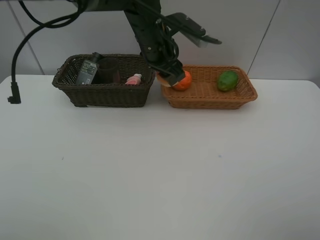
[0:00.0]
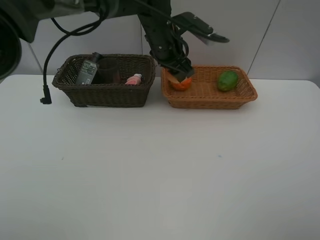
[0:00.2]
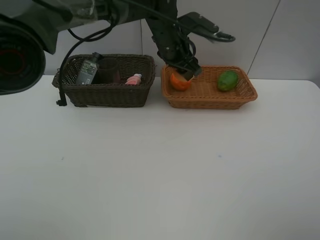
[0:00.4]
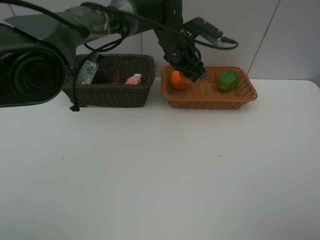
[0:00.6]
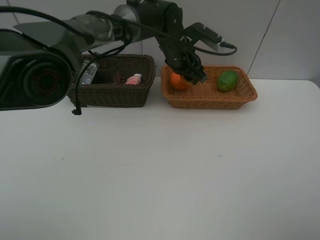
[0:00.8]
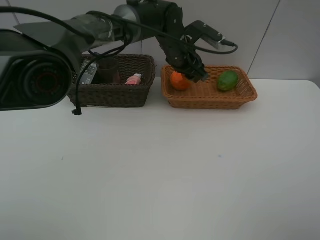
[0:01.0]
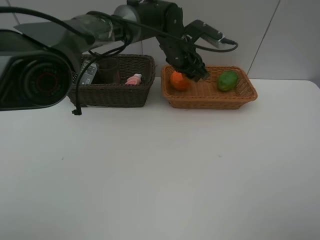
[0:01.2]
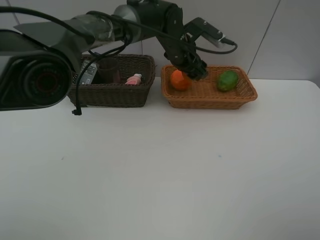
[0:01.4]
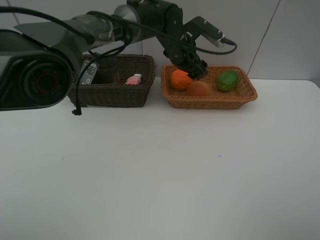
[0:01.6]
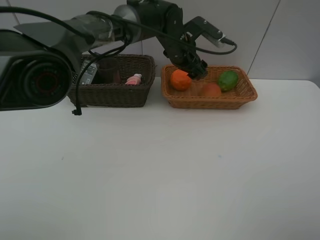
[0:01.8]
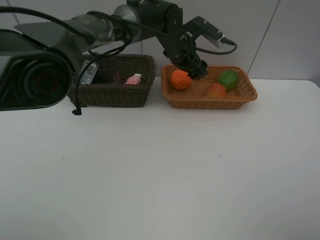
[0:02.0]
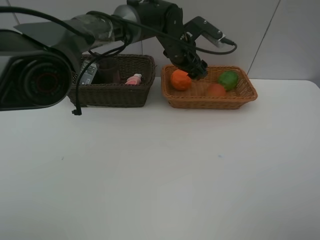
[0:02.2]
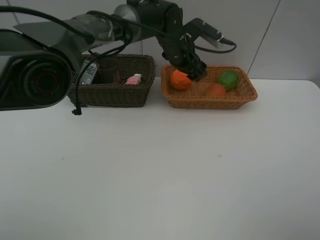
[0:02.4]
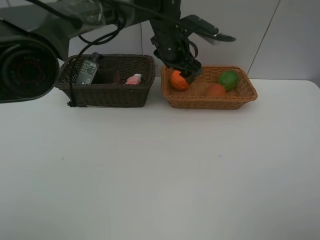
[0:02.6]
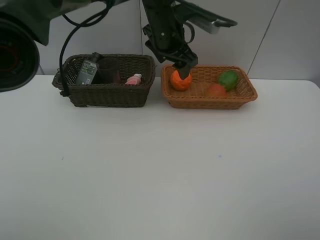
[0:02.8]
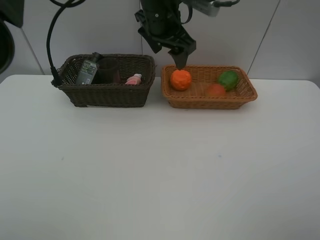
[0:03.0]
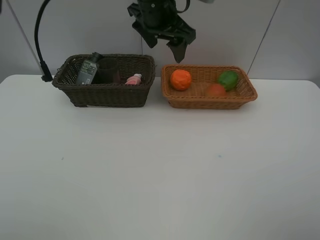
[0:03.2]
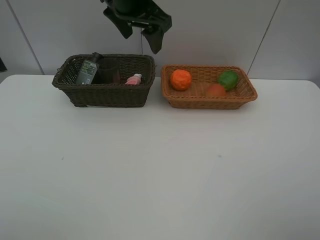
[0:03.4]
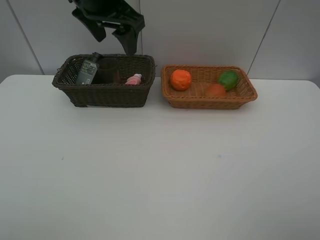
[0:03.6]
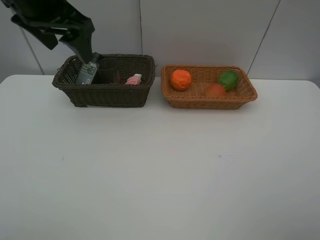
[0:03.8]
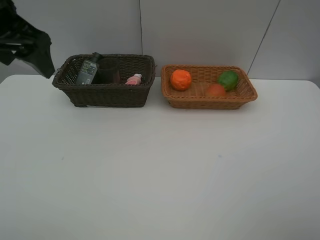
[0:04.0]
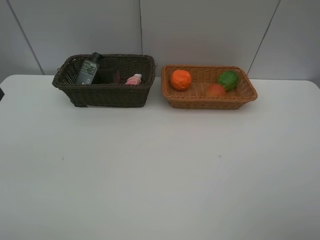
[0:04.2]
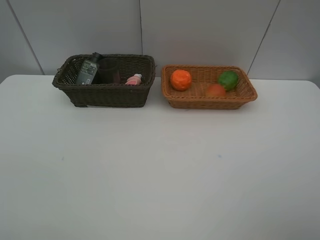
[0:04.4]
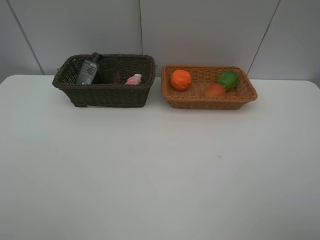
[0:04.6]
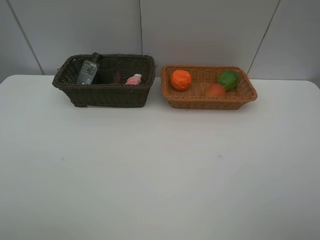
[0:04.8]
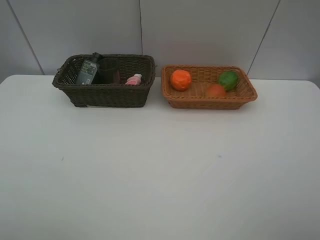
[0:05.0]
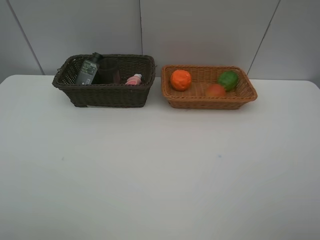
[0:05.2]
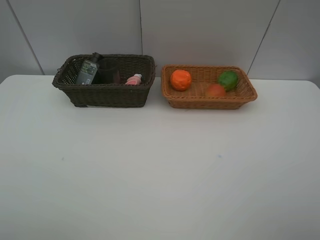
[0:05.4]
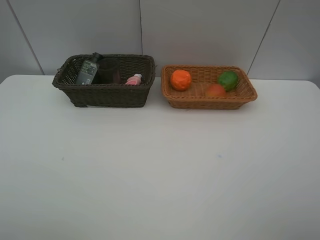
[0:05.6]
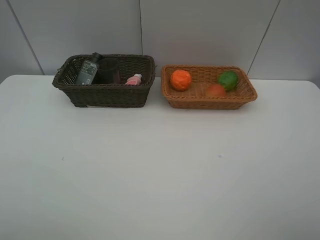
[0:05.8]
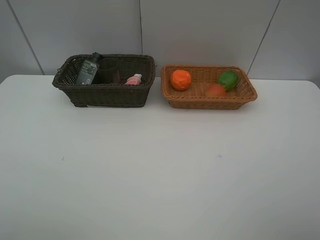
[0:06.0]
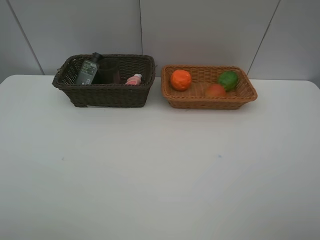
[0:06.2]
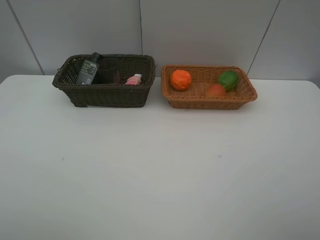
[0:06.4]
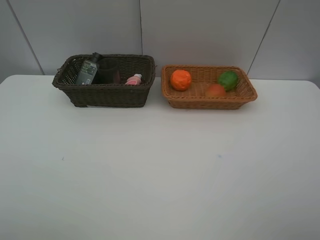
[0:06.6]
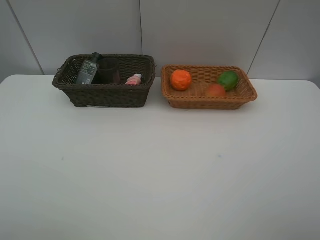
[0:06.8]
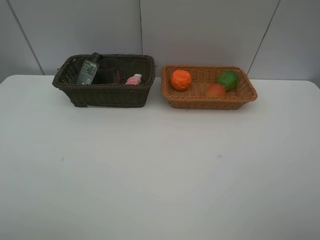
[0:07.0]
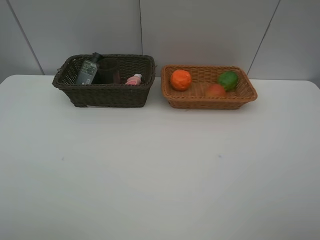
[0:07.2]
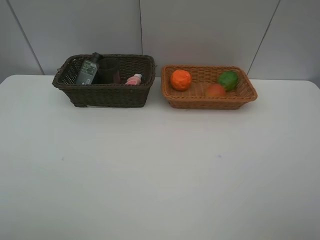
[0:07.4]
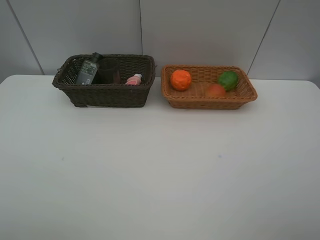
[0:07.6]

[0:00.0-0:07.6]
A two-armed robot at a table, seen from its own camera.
Task of the whole recording: place multiple objects separately in different baskets.
0.0 to 1.6 s: The left gripper is displaced forward by approximately 5 cm.
1.6 to 3.0 s: The left gripper shifts roughly 10 cm upward and backward.
3.0 to 4.6 s: The left gripper travels backward and to the left by approximately 50 cm.
6.0 to 7.6 s: Neither gripper changes place.

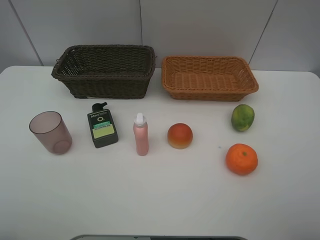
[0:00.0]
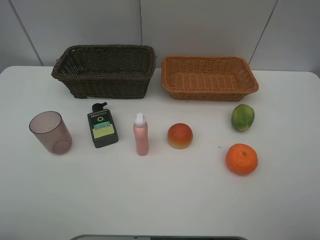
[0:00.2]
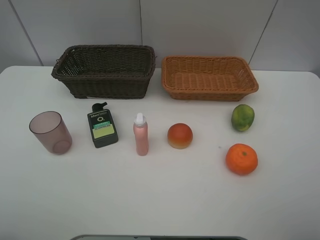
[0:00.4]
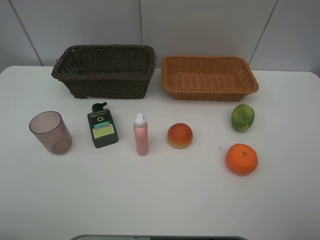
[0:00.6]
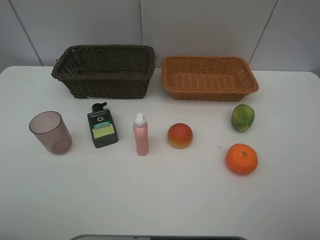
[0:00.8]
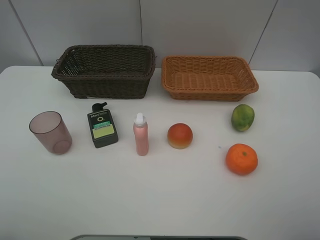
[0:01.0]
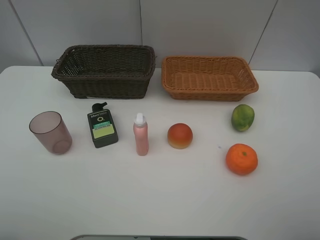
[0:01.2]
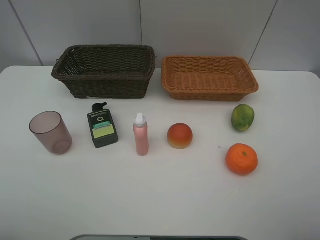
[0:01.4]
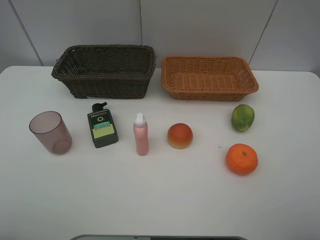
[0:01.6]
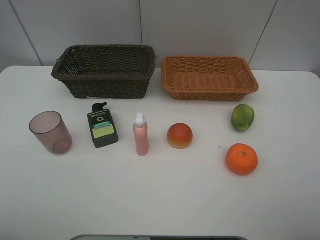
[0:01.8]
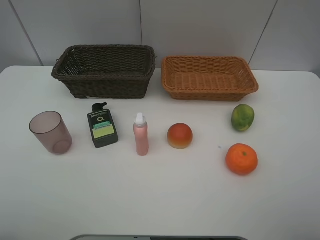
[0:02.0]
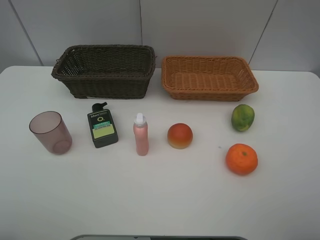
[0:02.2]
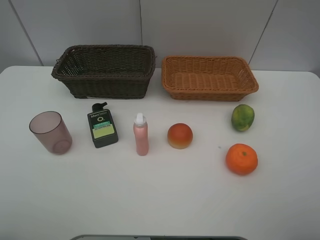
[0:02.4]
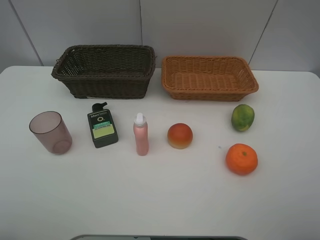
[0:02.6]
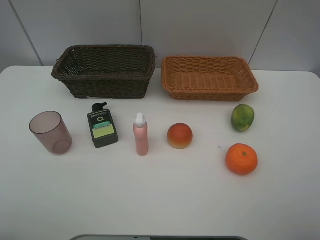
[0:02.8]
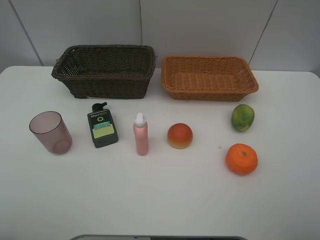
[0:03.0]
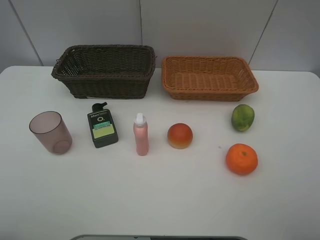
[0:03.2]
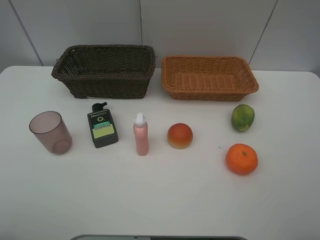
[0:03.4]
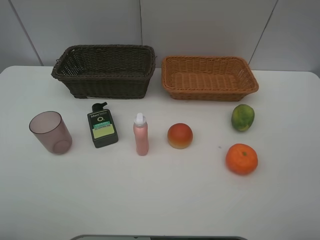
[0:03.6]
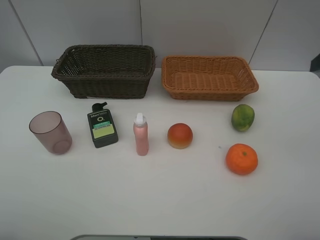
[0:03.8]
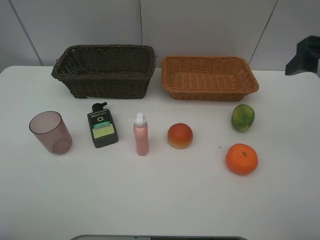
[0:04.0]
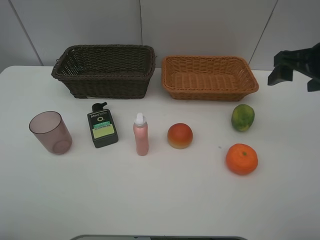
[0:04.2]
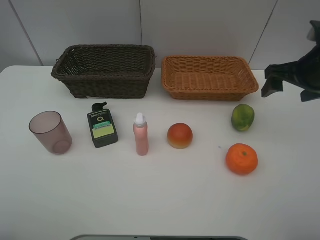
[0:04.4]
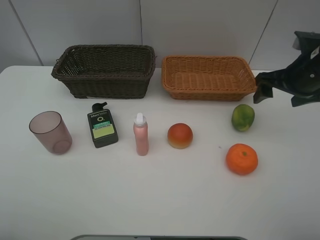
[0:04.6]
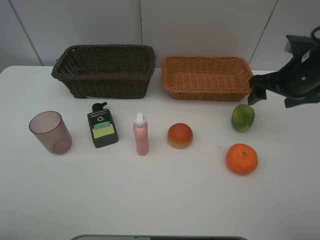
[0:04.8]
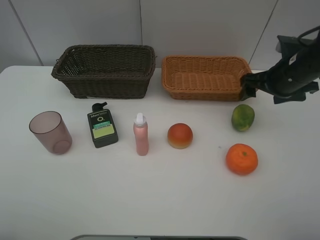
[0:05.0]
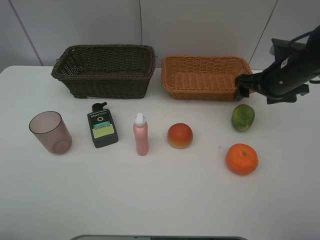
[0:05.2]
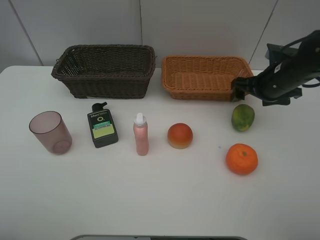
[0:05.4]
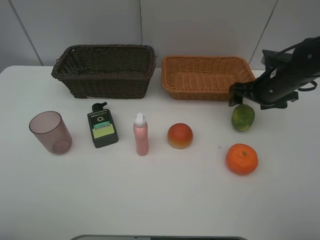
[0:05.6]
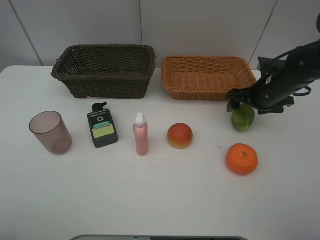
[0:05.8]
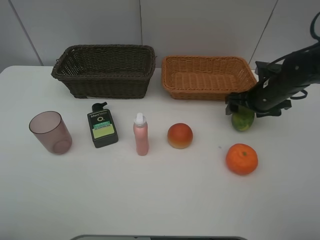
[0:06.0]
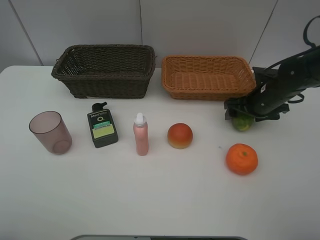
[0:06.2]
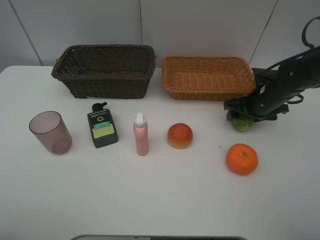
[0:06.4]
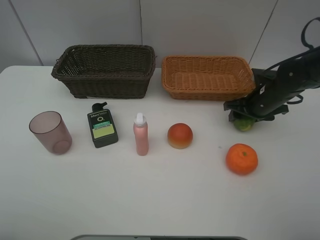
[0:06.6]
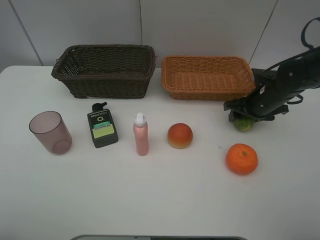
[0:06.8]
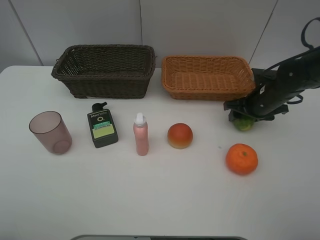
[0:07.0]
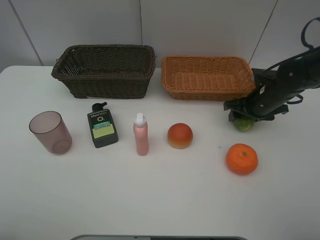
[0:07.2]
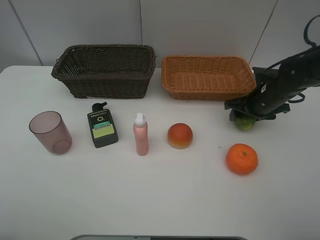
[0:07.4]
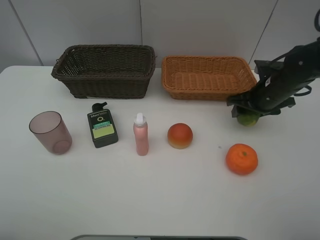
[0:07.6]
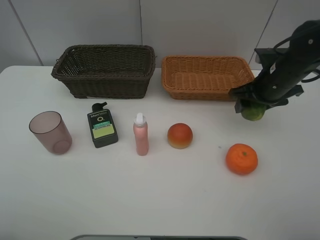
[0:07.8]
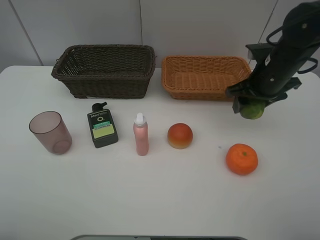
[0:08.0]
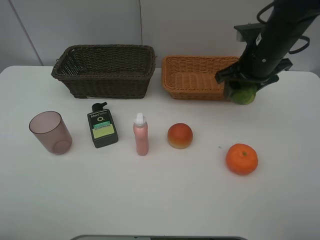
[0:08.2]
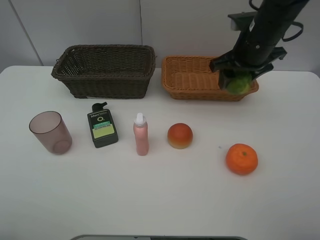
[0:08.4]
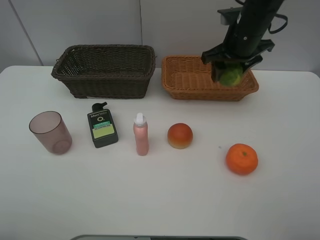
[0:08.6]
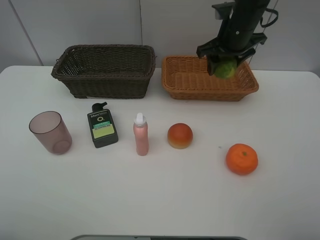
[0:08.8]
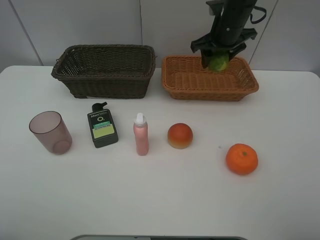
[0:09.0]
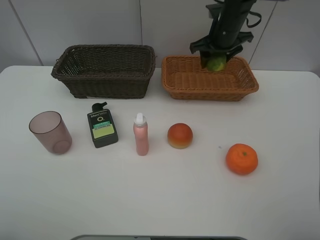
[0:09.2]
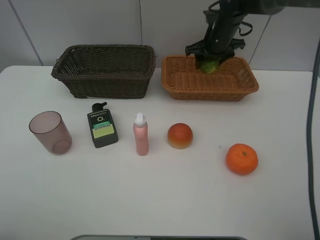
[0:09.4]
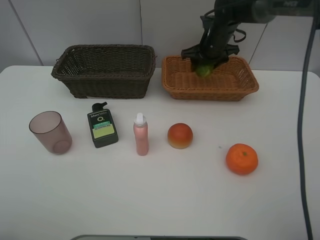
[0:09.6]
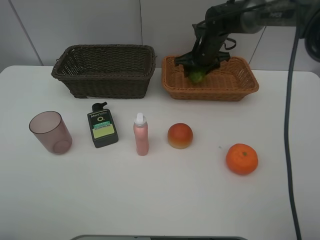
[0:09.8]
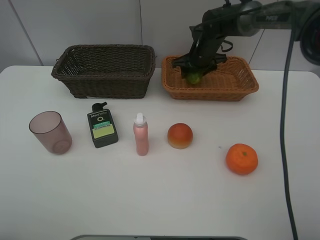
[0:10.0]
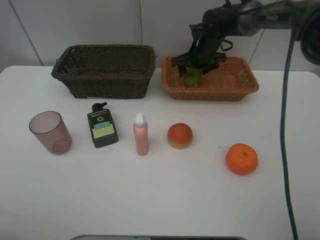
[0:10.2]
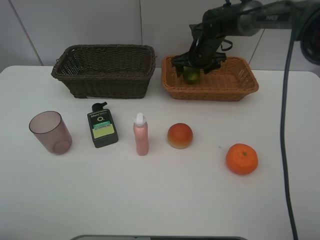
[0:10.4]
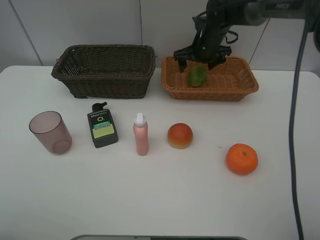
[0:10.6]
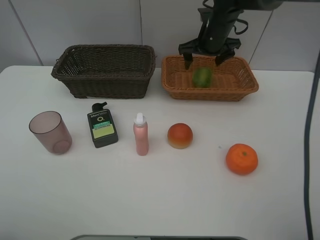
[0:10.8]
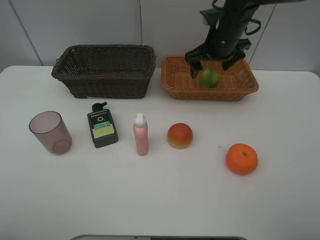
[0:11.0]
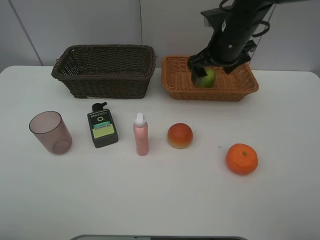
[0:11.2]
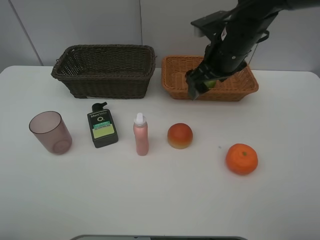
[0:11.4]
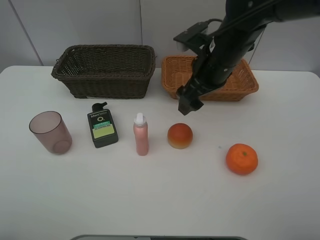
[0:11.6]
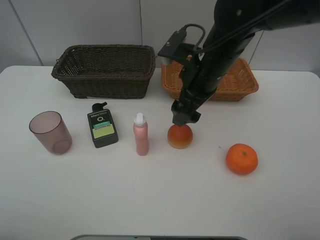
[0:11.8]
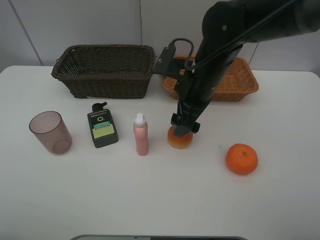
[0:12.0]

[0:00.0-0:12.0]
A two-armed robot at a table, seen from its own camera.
Task of the whole recording: place multiple objects separately in different baskets.
Step, 0.0 to 7.6 s: Pick up the lime with right gripper.
Step, 7.8 to 10.8 s: Place the lime in the light basket with right gripper.
0.0 to 1.6 s: The two grippers keep their place.
3.0 to 4.4 s: The right gripper heads forward, covering roughly 25 cm.
4.4 to 6.0 s: The right gripper shifts roughly 15 cm downward and forward.
6.0 to 7.6 s: The right gripper closes up.
7.6 to 9.0 s: The right gripper goes roughly 20 cm forward, to the left and upward.
9.0 to 10.4 s: The right gripper shifts about 10 cm downward, and opens its fingers.
10.4 to 12.0 s: The right gripper travels backward by roughly 20 cm.

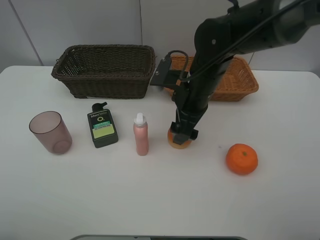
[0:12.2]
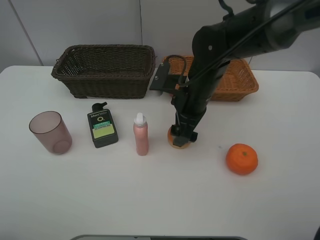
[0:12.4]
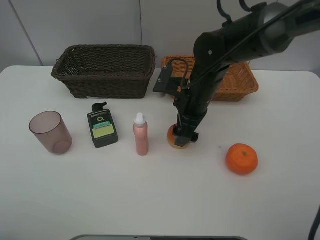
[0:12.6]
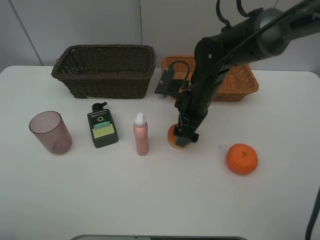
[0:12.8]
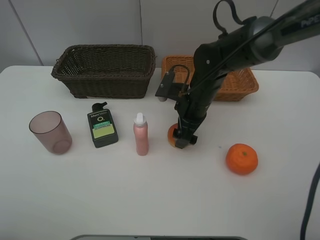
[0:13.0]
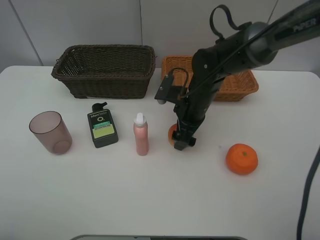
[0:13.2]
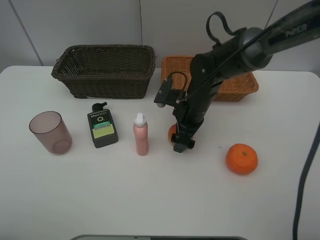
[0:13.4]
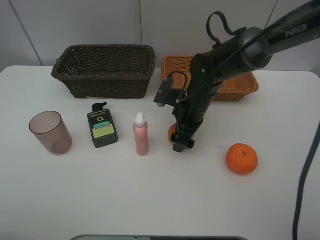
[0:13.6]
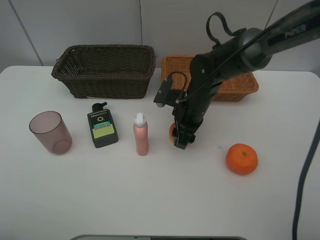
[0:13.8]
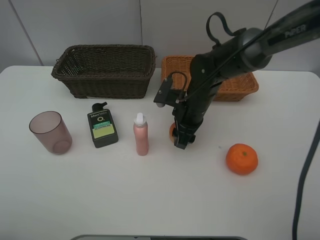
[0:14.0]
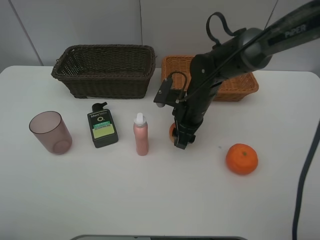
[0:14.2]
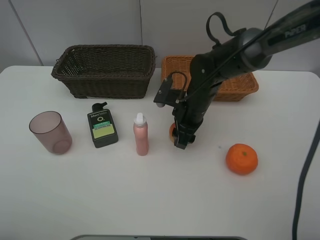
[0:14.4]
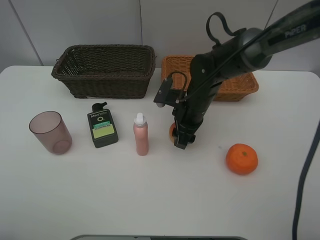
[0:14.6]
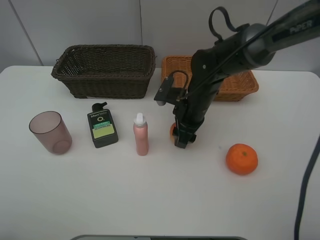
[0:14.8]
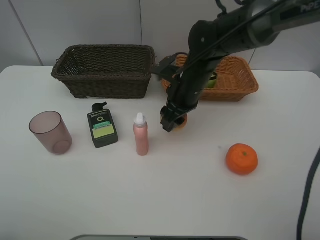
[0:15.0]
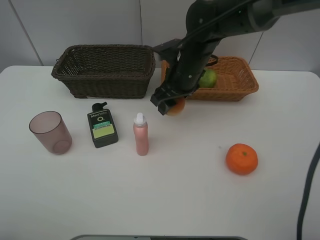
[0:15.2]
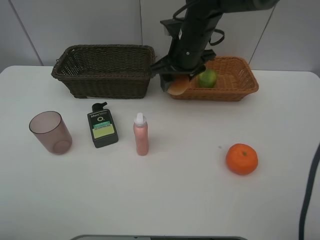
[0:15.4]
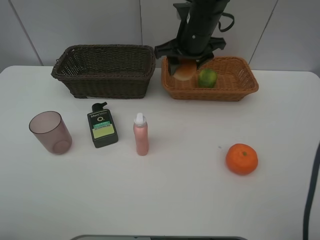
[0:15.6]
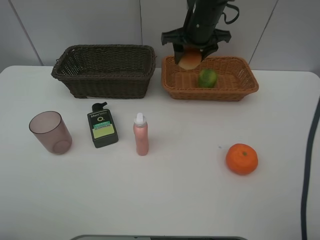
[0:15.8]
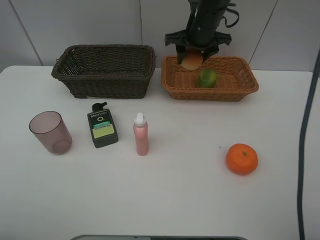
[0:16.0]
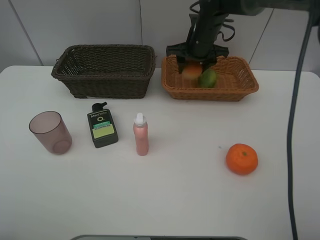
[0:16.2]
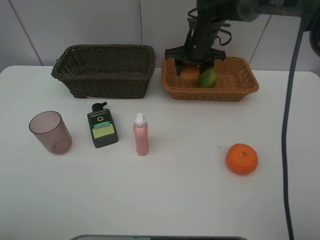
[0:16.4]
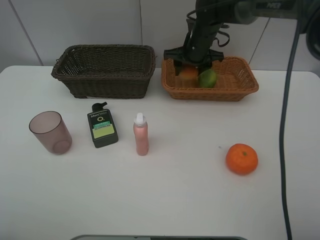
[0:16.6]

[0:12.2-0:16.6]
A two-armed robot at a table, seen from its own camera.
Task of the whole recording: place multiple objects separately in different baskets.
Step, 12.2 to 14.8 s: Pick up the bread with right gripper.
12.2 to 13.6 s: The right gripper heads downward, covering some 5 cm.
13.6 to 15.2 s: The right gripper travels upward by about 10 cm, and closes up.
15.2 to 16.6 s: The right gripper travels forward by approximately 10 cm.
